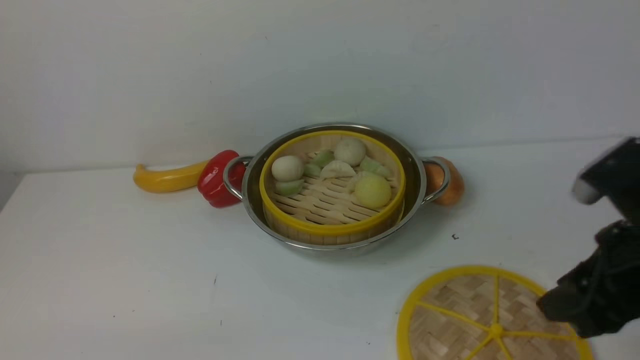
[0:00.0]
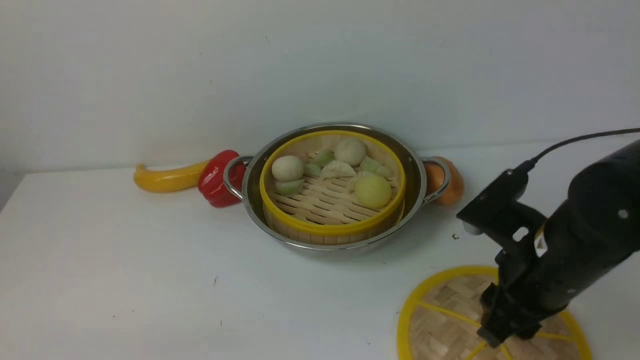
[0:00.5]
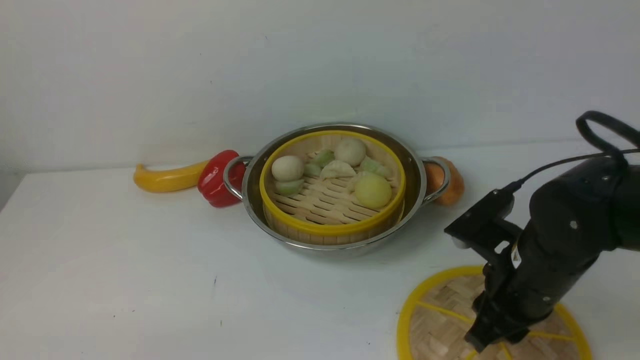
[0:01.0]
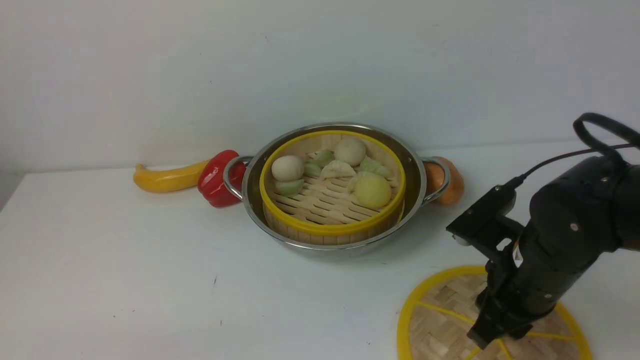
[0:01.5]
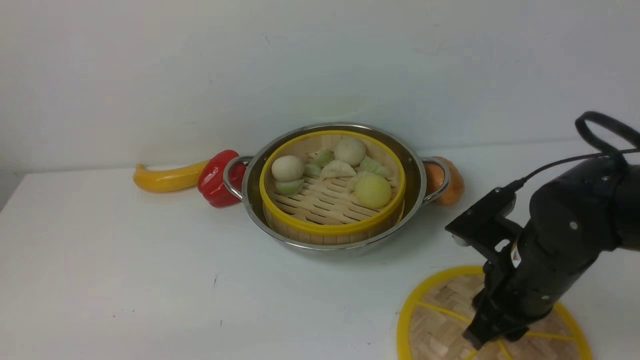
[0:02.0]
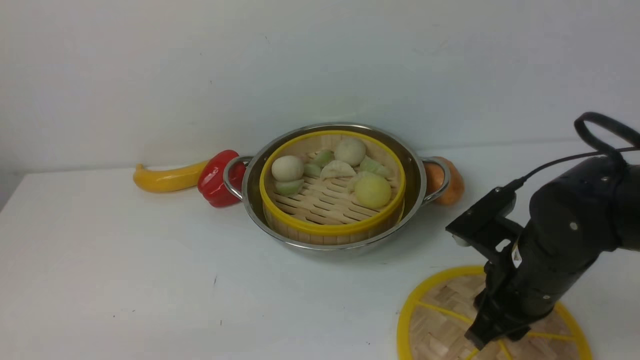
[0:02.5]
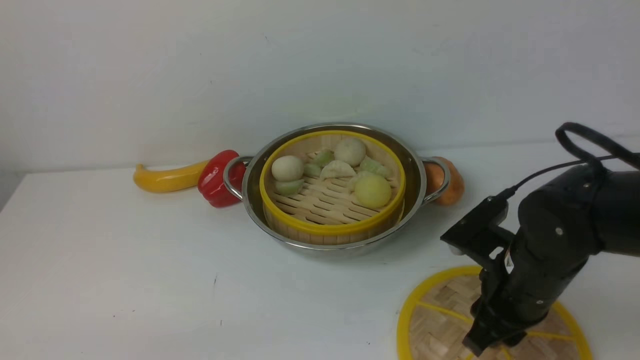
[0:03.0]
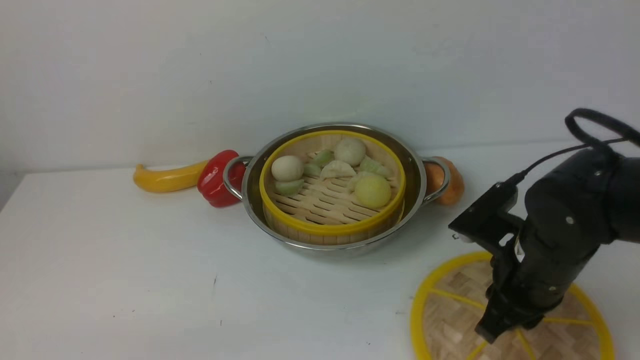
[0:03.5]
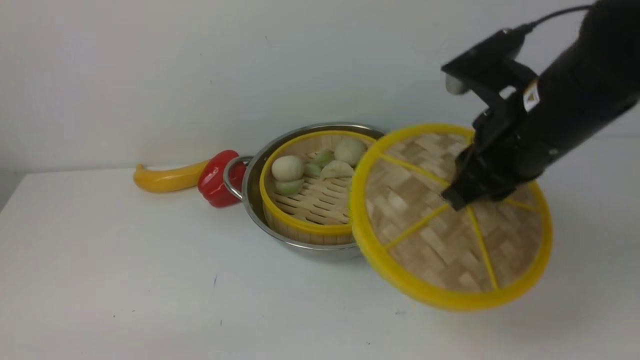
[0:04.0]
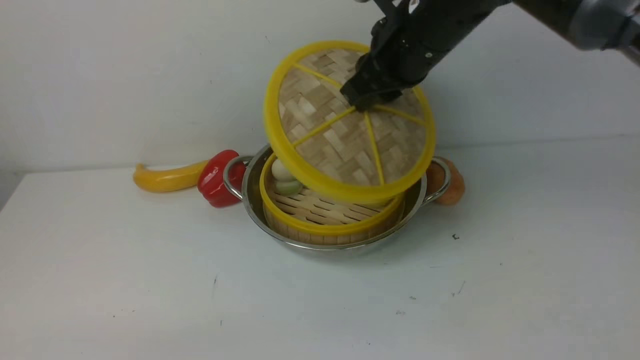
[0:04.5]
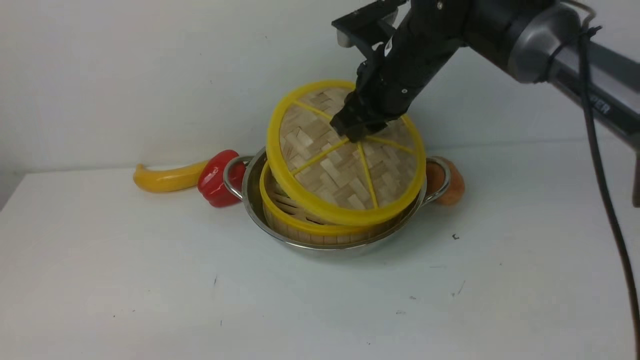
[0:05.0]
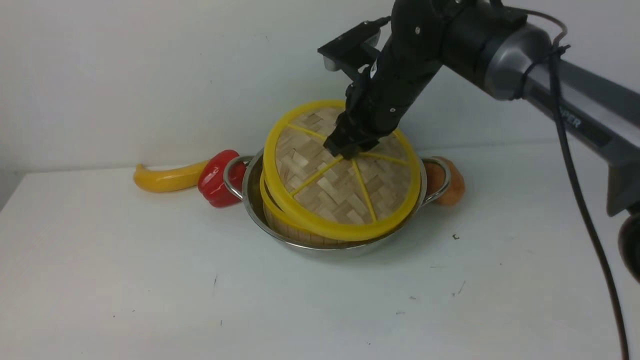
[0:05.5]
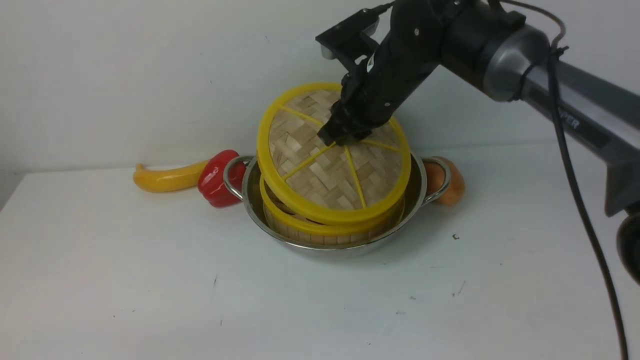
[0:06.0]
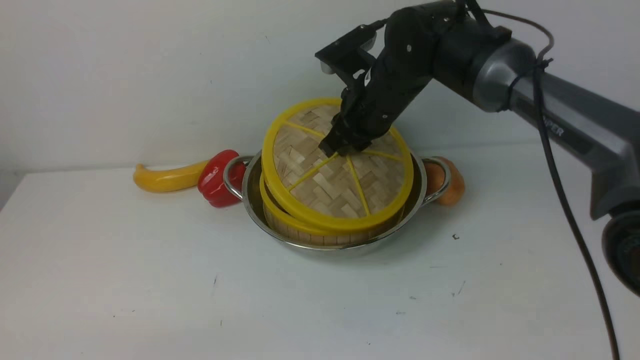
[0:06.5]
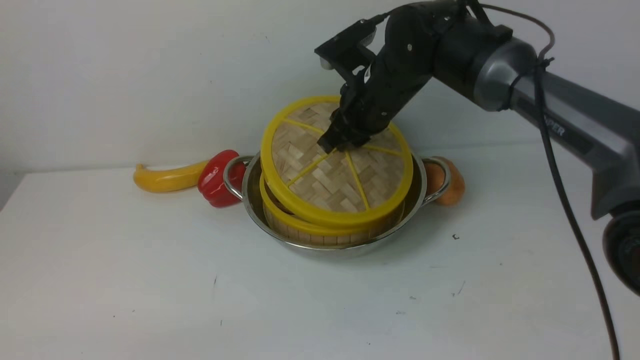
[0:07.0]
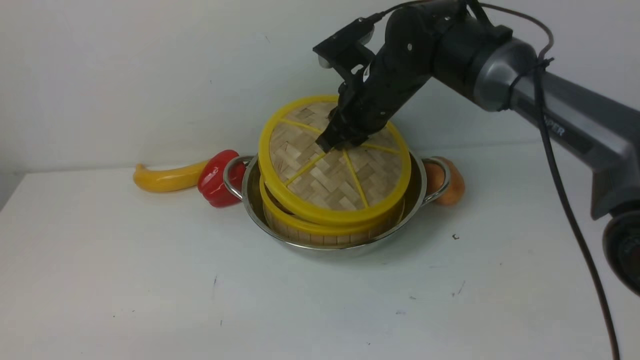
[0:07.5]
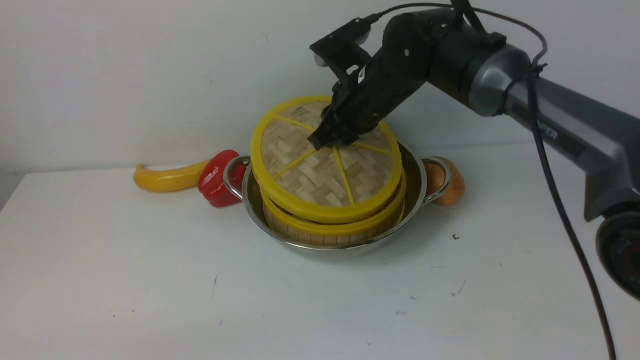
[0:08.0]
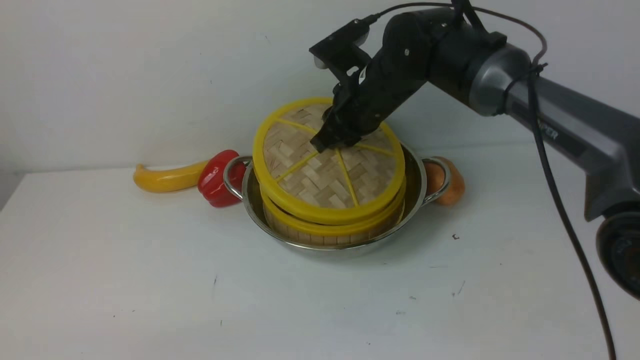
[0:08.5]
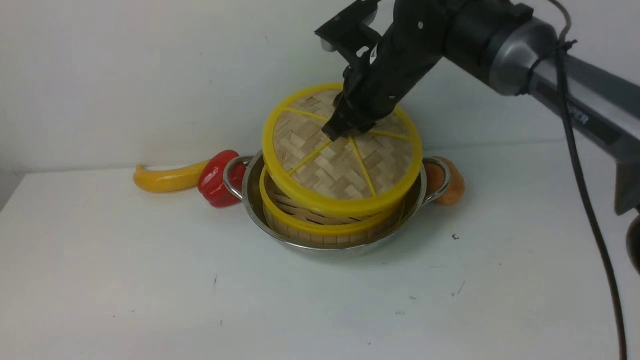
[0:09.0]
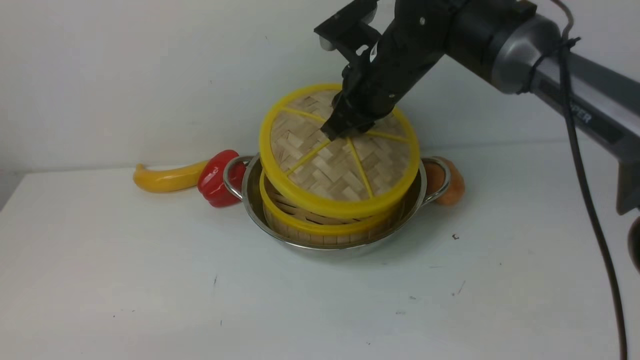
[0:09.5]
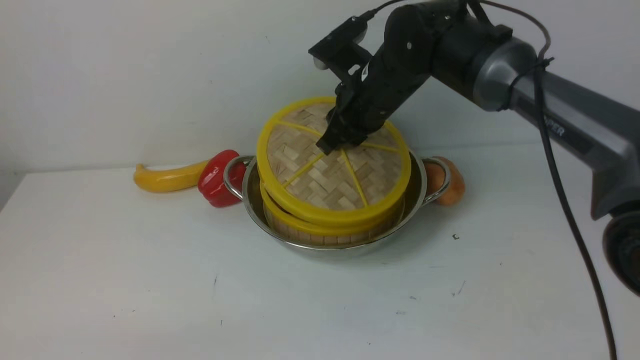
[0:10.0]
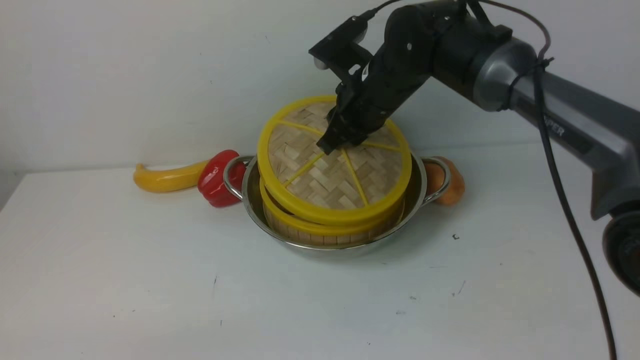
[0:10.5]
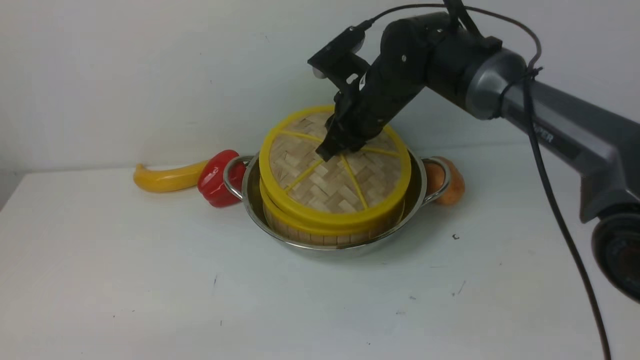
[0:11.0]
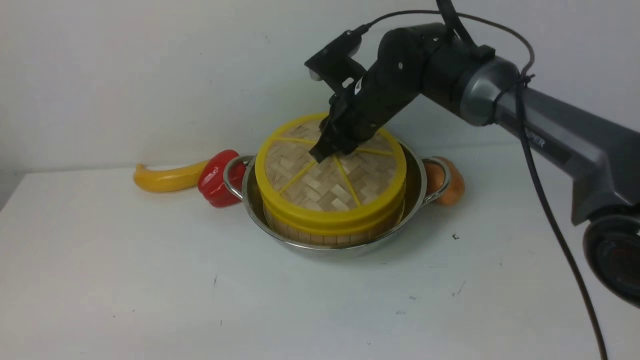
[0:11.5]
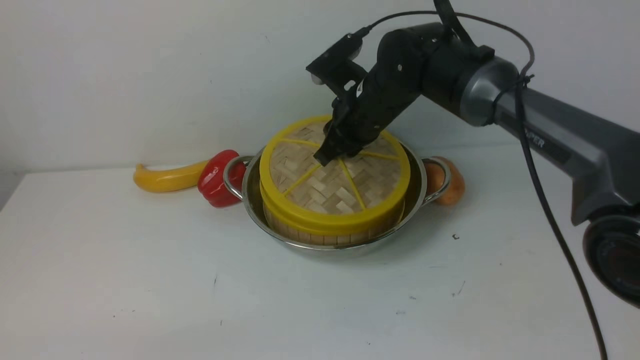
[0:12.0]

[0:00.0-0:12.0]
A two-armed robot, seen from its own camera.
Task of the whole recording: place the steamer in the pot on the white table, and put the lid on the steamer.
Step, 0:00.0 to 0:03.5: use the right arm to lift the lid of the steamer.
0:00.0 to 0:02.0: The right gripper heads downward, to the left and forward, covering some 10 cm.
0:02.0 to 0:04.0: The right gripper goes approximately 15 cm upward, and closes.
0:04.0 to 0:06.0: The right gripper heads forward and to the left, covering about 15 cm.
0:06.0 to 0:12.0: The grippers make only small movements.

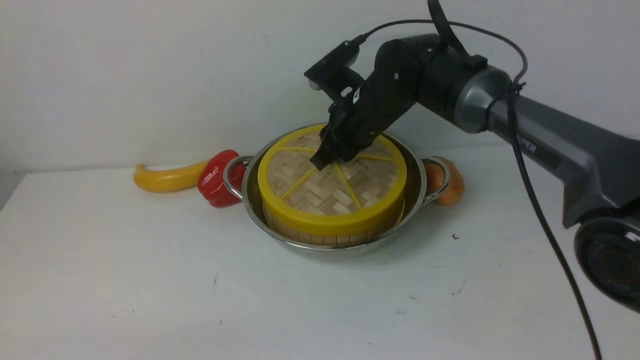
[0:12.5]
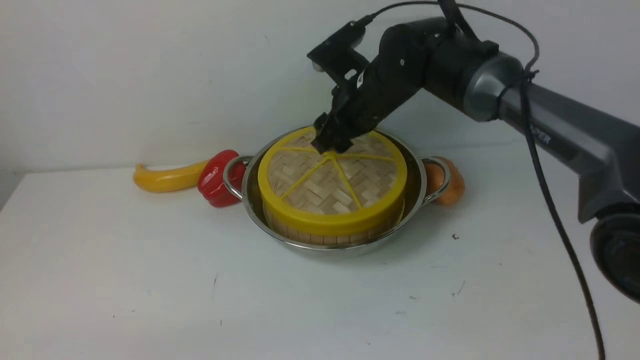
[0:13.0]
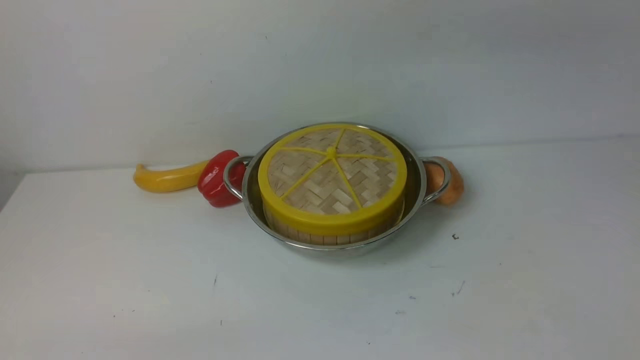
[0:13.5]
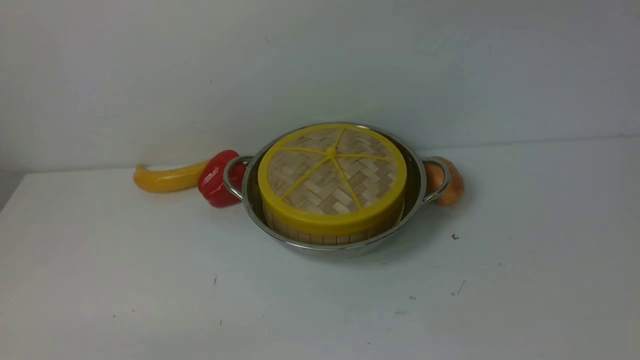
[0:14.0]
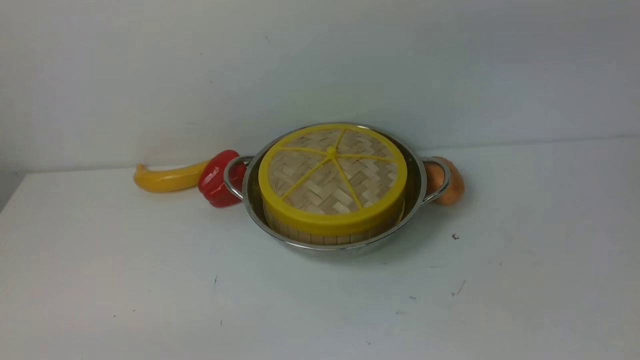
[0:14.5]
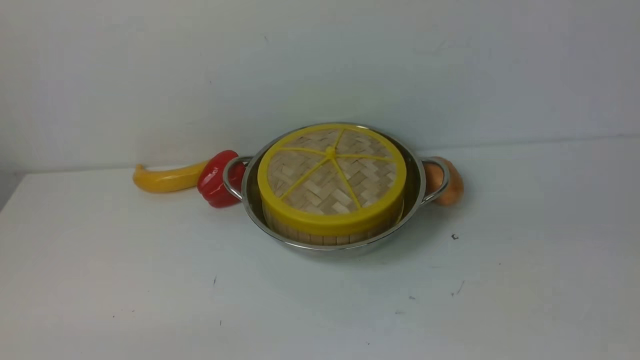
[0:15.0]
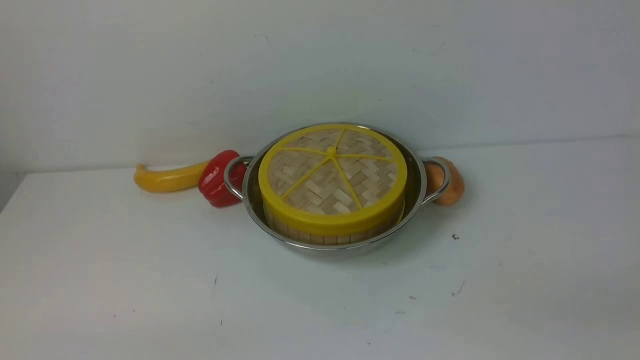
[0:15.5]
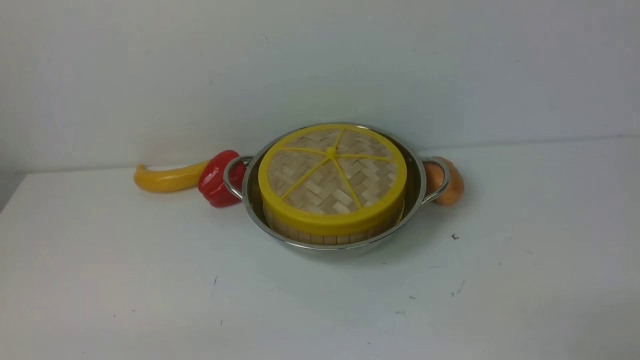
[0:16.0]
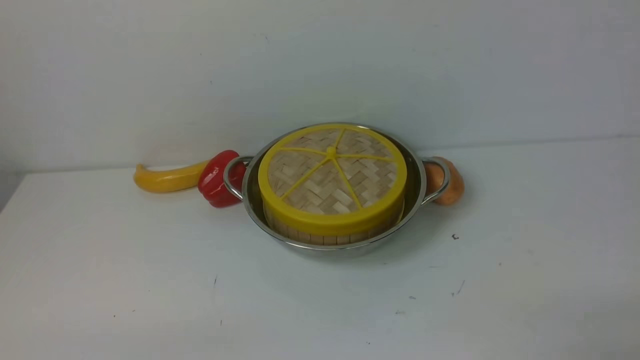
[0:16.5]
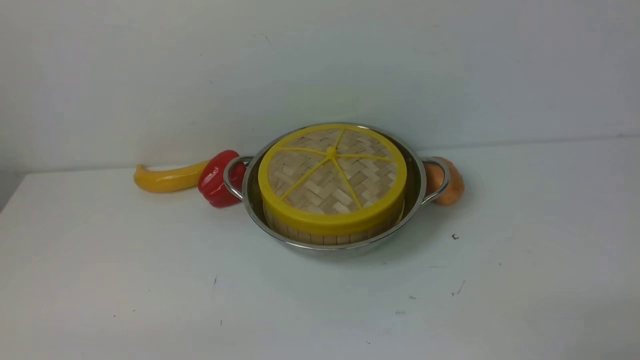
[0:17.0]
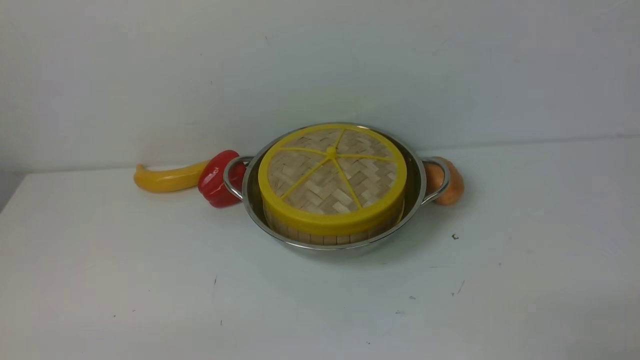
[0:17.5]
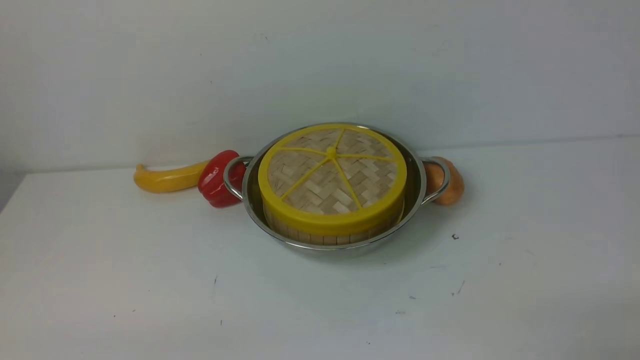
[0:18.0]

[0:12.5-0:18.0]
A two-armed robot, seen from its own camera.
Task of the whole recording: place the steamer in the pot on the white table, and put the lid on the steamer.
0:12.5 to 0:14.5: The right gripper heads upward, backward and to the right, covering some 35 cm, and opens and closes again.
0:16.0 to 0:18.0: Both grippers stay put.
